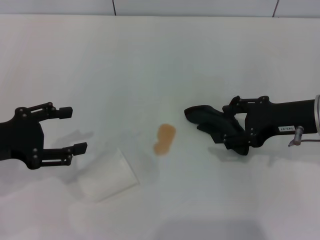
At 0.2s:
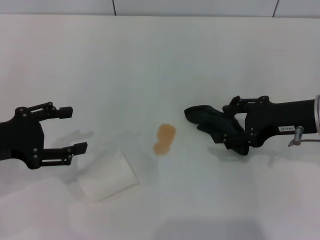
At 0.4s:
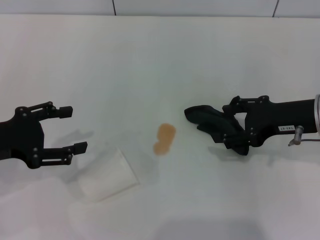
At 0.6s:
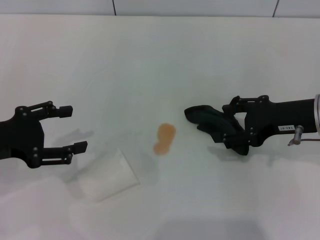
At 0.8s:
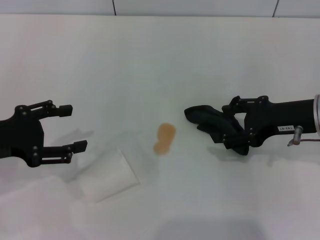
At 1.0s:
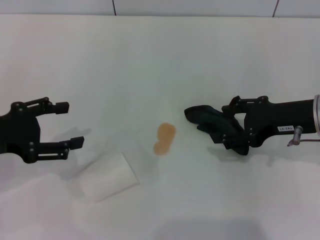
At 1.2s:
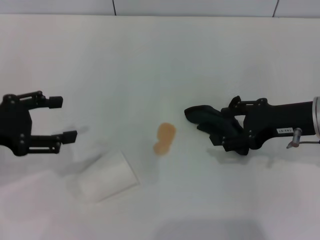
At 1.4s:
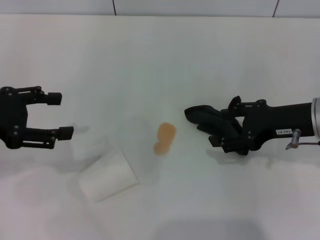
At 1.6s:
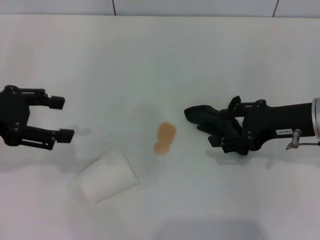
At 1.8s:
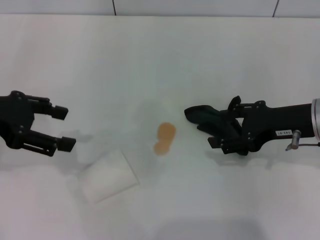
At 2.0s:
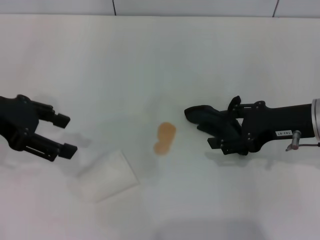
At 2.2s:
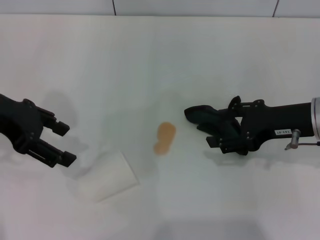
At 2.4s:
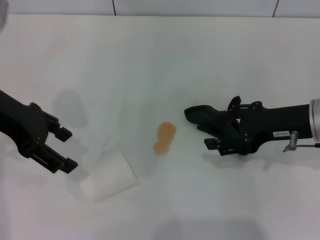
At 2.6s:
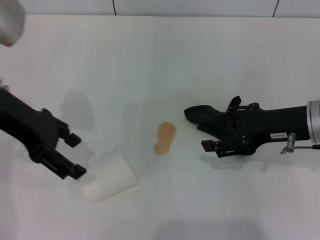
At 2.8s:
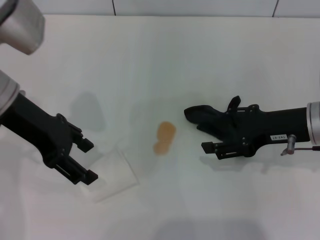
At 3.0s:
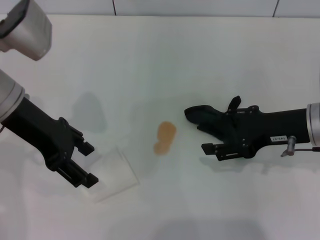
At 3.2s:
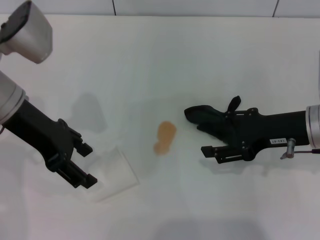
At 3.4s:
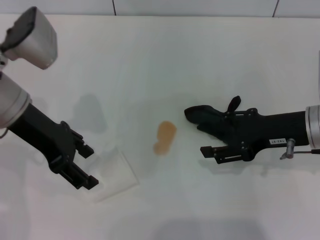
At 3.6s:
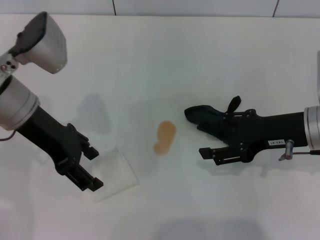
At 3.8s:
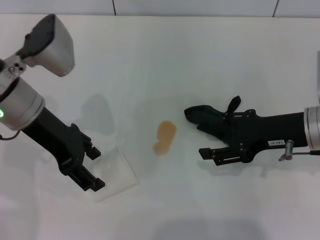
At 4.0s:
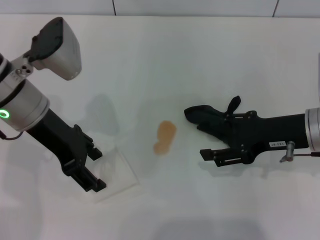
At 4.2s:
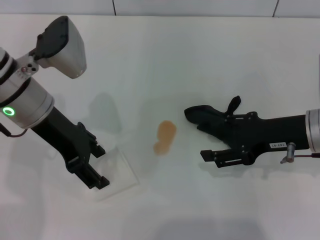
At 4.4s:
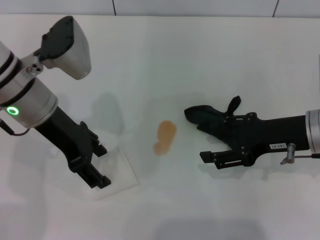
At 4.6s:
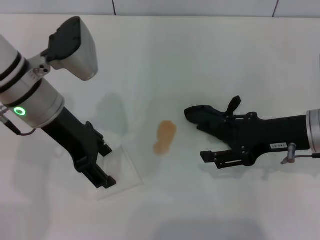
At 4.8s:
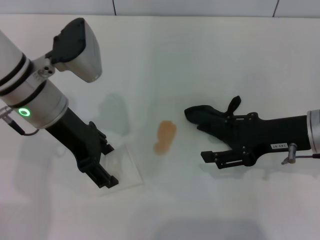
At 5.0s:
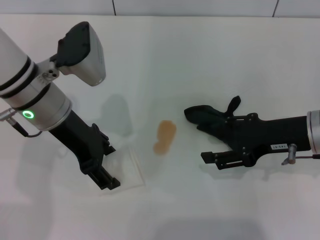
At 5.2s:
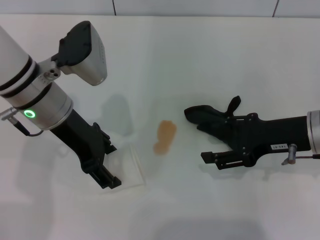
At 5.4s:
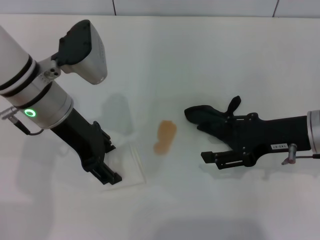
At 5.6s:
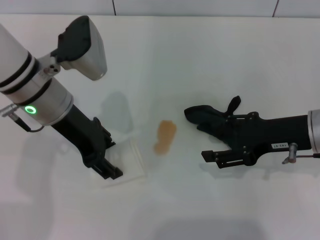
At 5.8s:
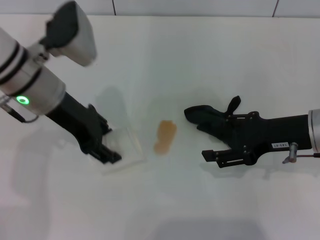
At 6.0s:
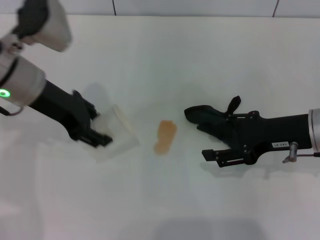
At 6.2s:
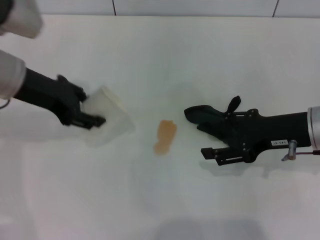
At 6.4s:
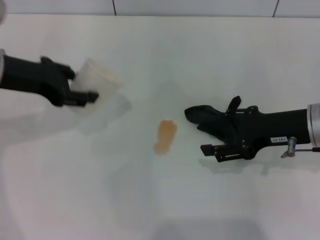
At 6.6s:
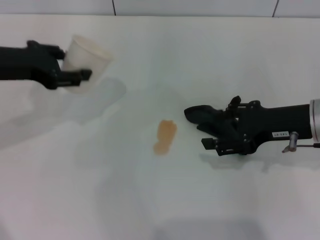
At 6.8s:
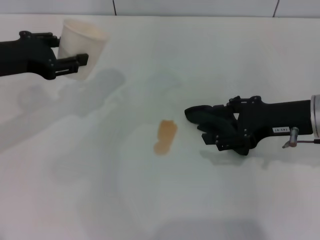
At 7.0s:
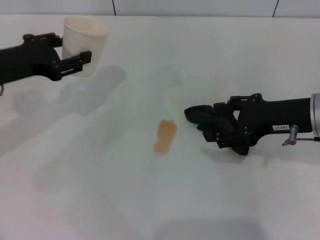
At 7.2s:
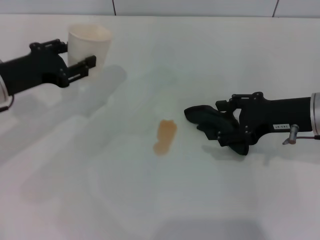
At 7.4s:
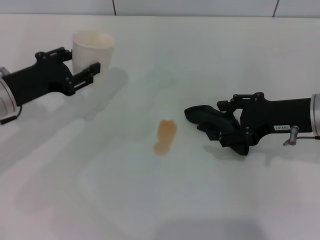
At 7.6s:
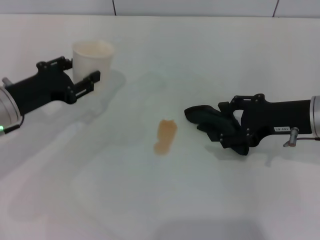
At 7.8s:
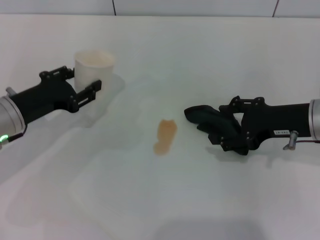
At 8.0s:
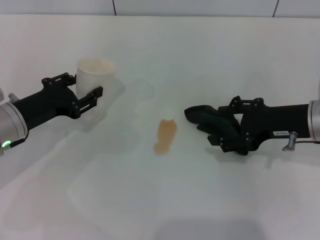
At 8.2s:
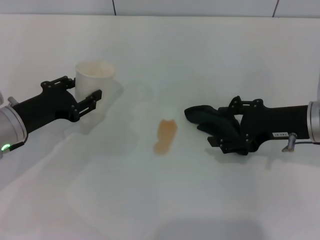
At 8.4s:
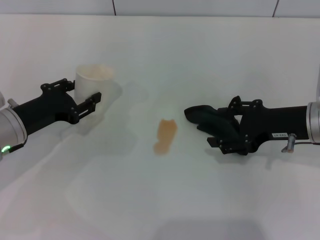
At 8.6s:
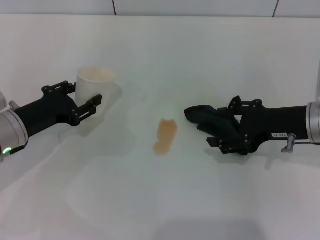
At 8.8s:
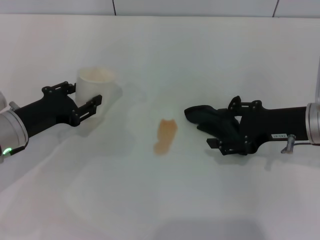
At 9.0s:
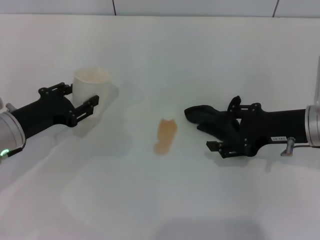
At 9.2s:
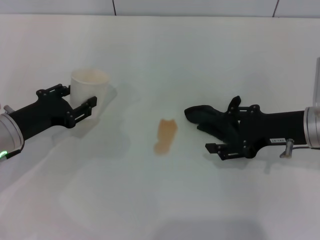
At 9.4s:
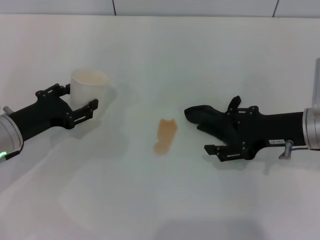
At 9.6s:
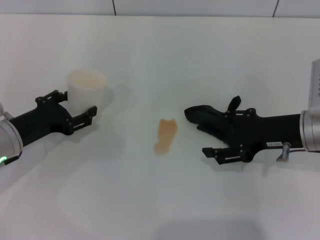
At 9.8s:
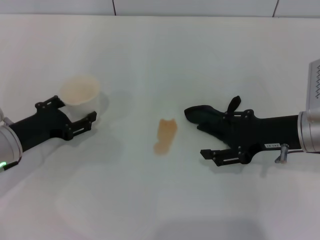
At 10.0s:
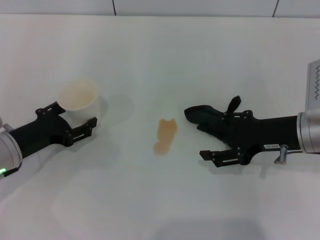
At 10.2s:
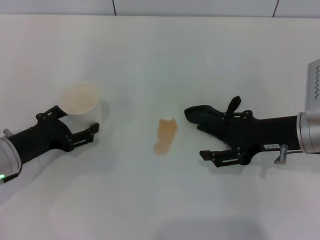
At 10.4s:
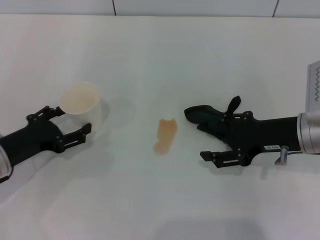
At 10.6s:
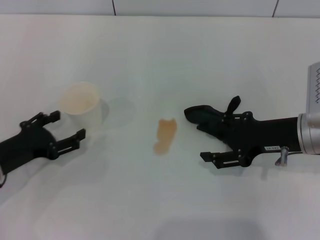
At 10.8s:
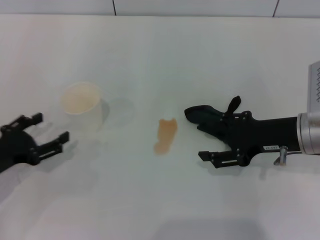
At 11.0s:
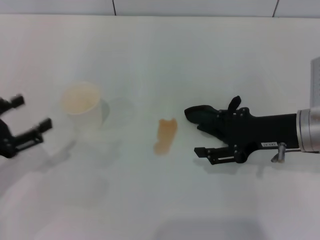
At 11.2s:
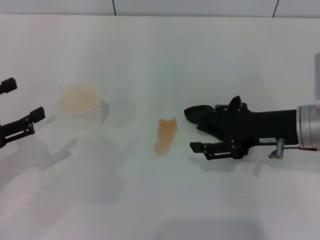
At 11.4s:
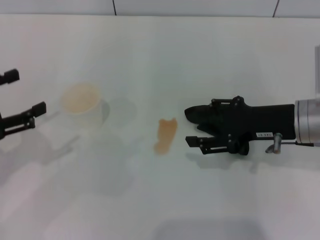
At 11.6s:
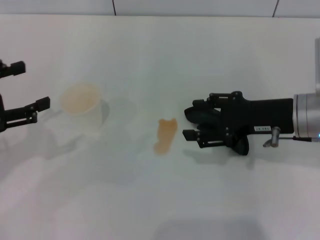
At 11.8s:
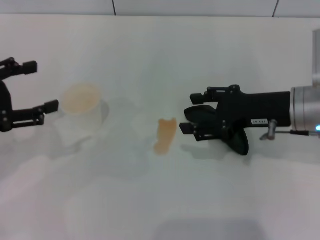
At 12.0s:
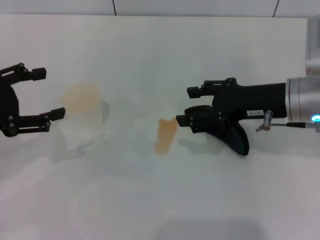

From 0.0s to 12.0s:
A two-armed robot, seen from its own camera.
Step, from 0.0s to 5.2s: Grasp the paper cup with the left gripper.
Step, from 5.4s to 10.4s: Stand the paper cup upright with the left gripper.
From 0.0s to 1.6s: The left gripper is displaced upward by some 5 cm.
From 1.6s to 3.0s: The left gripper moves to the right, some 10 cm.
From 3.0s to 4.4s: There are only small adjustments of the grippers.
From 4.4s to 6.0s: The left gripper closes up.
From 6.0s to 7.6s: The left gripper moves downward and to the left, approximately 10 cm.
From 7.6s to 9.0s: The grippers make only small movements.
From 9.0s to 10.4s: The left gripper opens its fingers.
From 10.4s to 12.0s: The right gripper moves roughly 5 cm; the left gripper is displaced upward by about 15 cm.

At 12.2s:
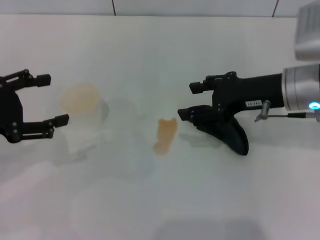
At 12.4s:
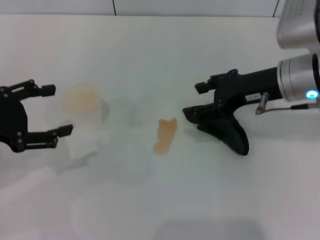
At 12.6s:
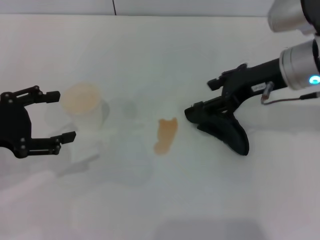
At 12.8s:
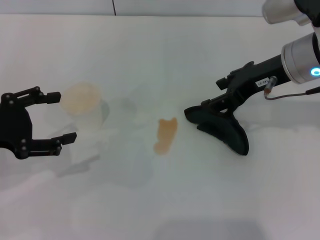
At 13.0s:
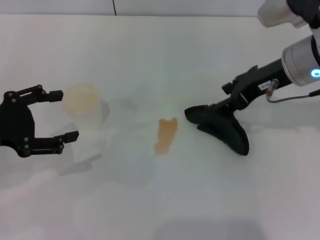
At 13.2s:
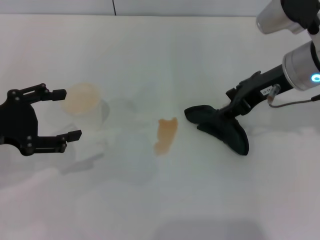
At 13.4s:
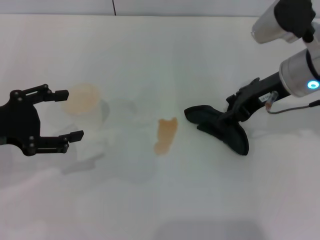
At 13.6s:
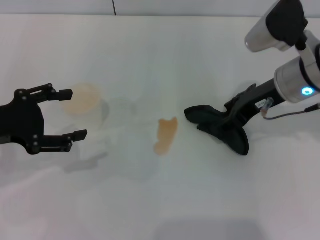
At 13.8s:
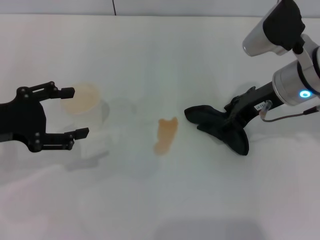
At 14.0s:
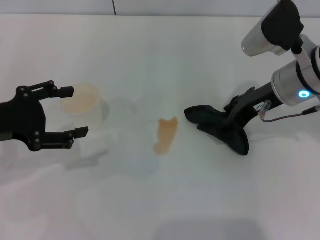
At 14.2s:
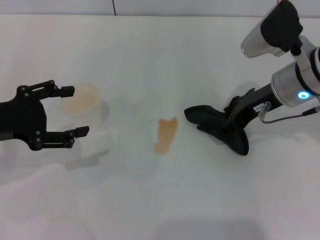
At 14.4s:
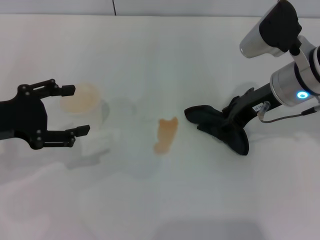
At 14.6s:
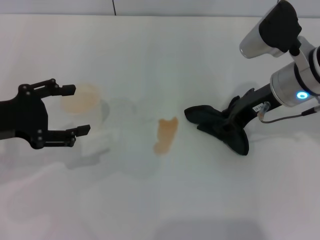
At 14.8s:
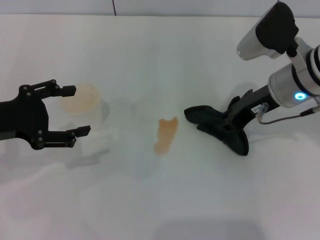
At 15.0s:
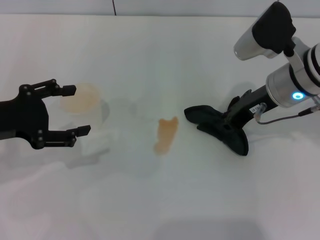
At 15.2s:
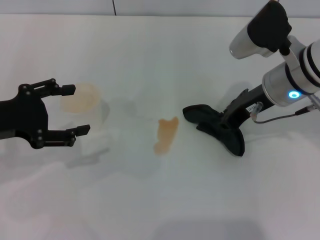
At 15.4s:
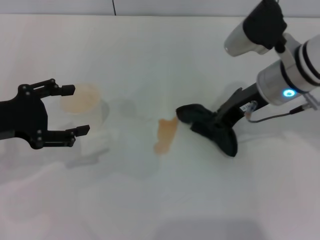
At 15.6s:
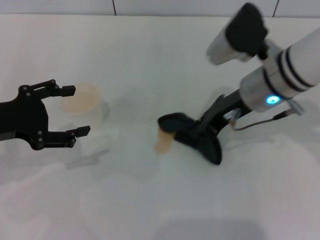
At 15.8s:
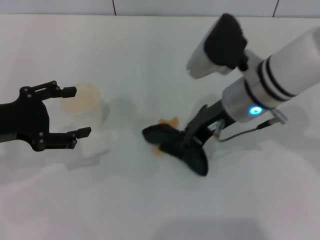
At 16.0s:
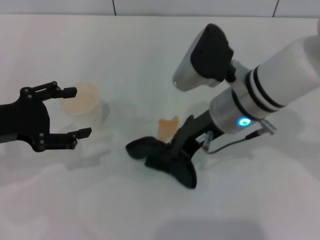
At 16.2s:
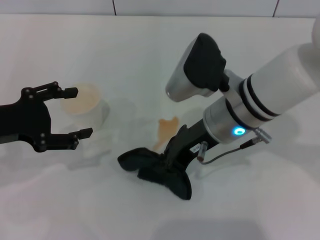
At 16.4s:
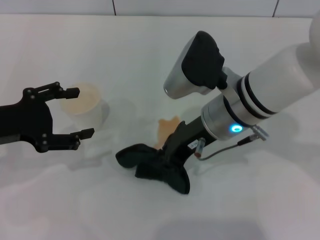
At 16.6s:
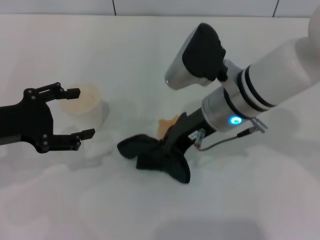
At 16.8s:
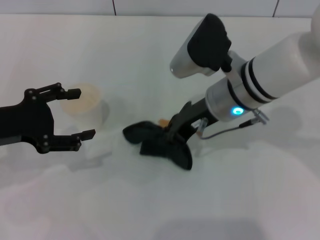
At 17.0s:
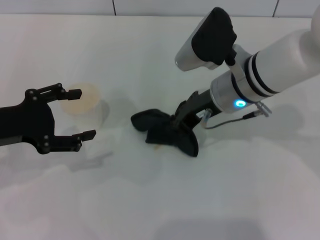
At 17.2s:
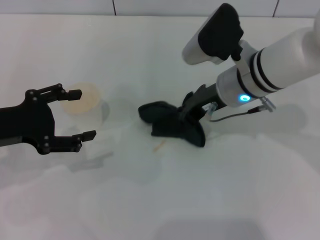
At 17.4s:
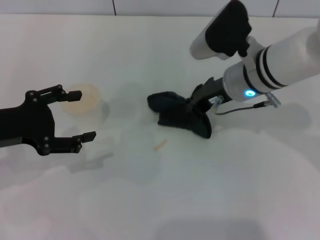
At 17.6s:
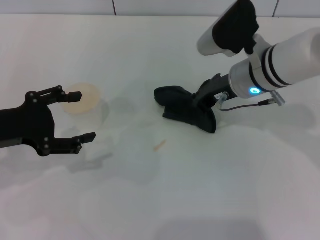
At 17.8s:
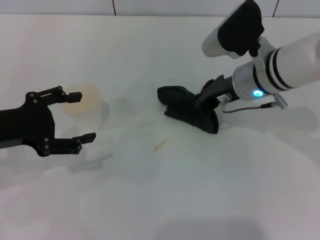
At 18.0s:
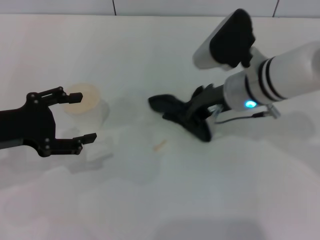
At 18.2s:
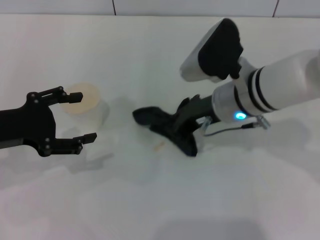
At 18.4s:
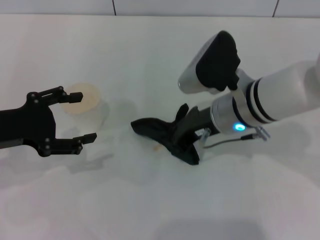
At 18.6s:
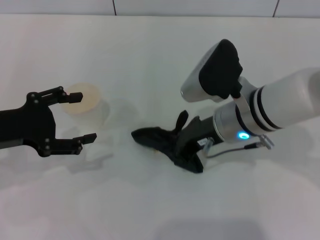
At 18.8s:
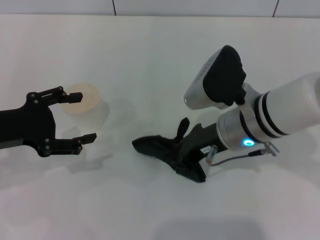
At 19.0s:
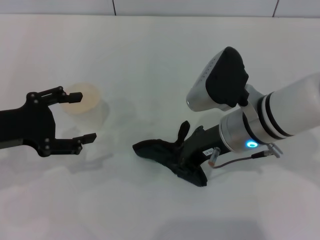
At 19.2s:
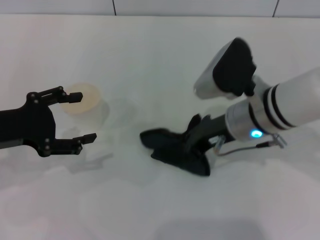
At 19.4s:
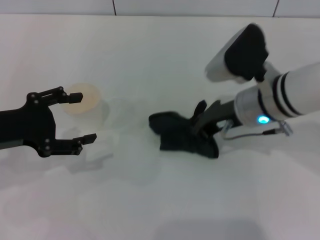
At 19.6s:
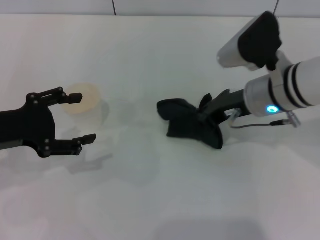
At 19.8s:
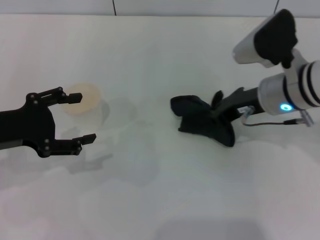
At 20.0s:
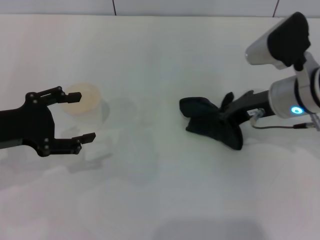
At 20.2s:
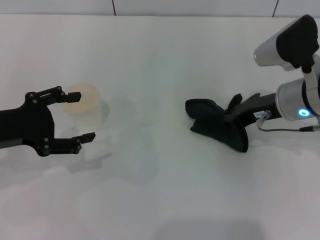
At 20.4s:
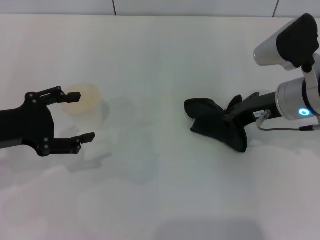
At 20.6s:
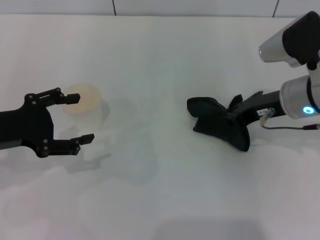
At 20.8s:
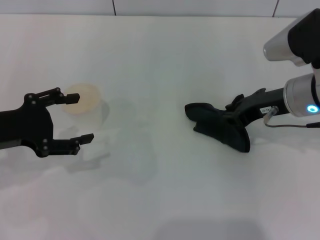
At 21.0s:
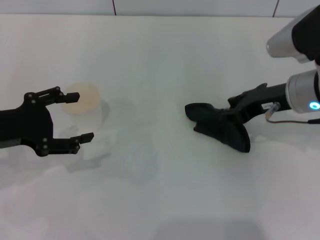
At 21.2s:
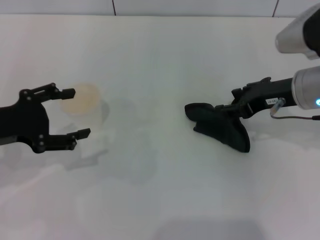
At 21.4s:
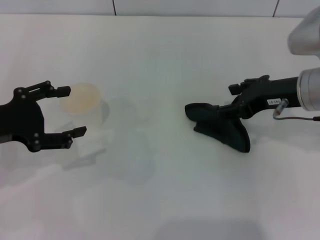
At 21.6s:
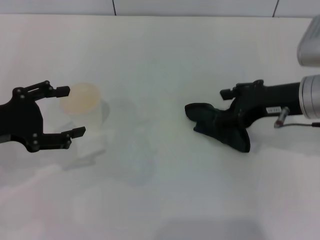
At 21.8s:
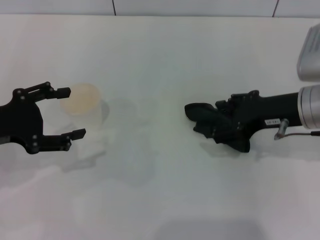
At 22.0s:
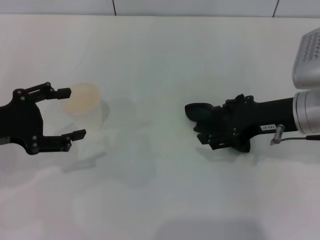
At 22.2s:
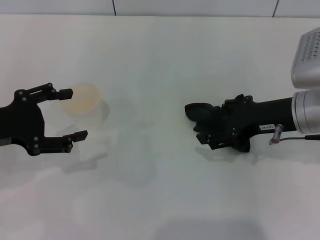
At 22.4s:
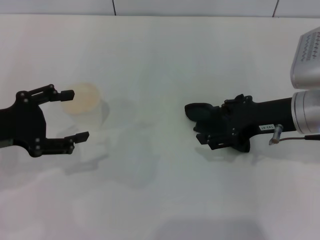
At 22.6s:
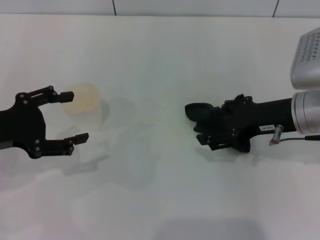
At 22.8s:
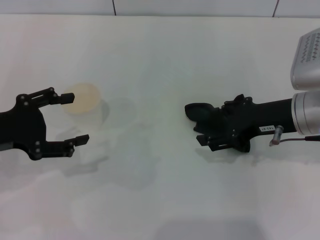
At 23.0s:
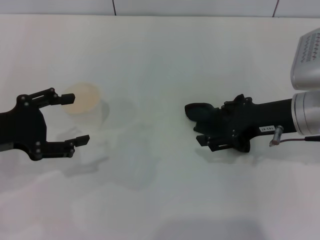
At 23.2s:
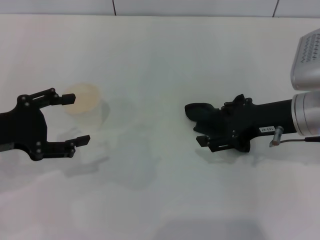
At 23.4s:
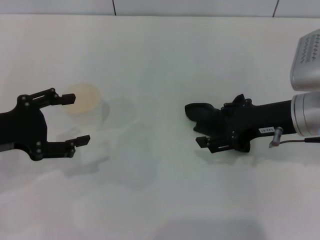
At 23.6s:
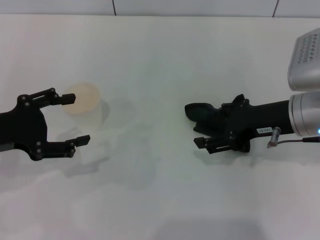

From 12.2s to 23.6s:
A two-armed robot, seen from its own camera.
Step, from 12.2s to 14.8s: Grasp the rag with the right gripper.
Step, from 15.0s to 20.4s: Wipe the stains off the table with the right gripper.
Step, from 20.6s to 22.6s: Place the rag on the table with the right gripper.
From 13.6s to 15.0s: The right gripper closes its fingers.
From 15.0s to 16.4s: The right gripper travels to the left by some 10 cm.
From 16.4s to 17.8s: The right gripper moves forward and to the right, about 10 cm.
From 19.4s to 20.8s: The right gripper is displaced to the right by roughly 5 cm.
From 20.8s to 22.2s: The right gripper opens.
From 22.2s to 23.6s: Both grippers stay about where they are.
